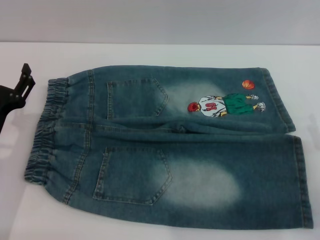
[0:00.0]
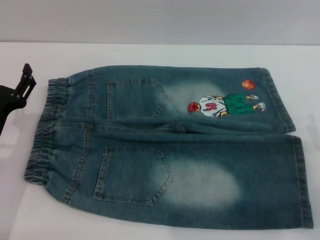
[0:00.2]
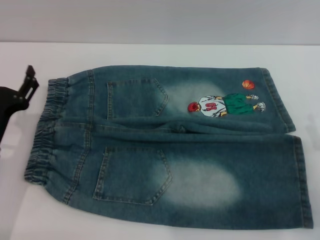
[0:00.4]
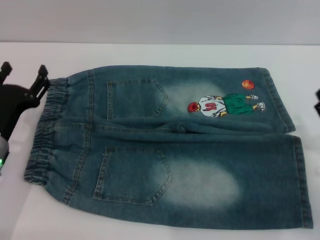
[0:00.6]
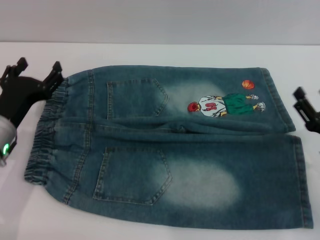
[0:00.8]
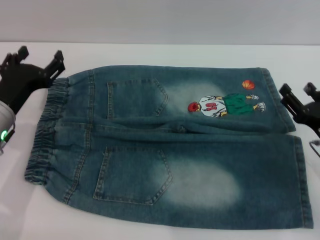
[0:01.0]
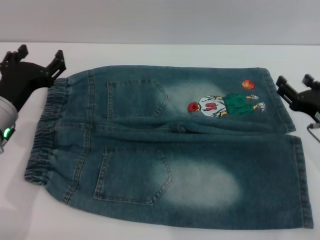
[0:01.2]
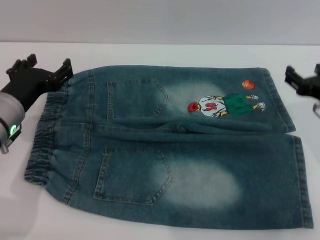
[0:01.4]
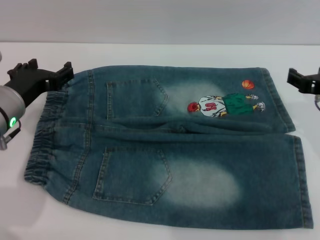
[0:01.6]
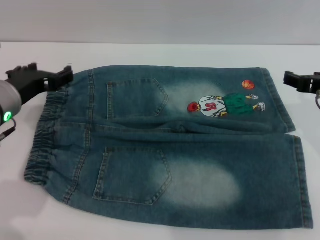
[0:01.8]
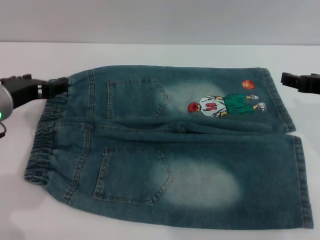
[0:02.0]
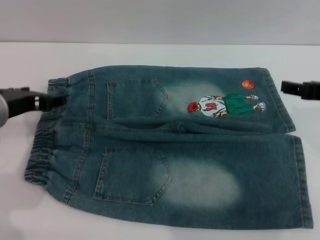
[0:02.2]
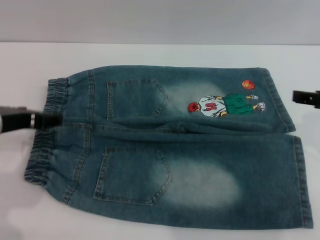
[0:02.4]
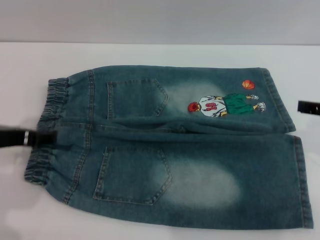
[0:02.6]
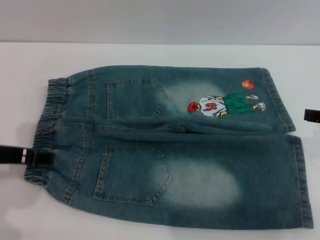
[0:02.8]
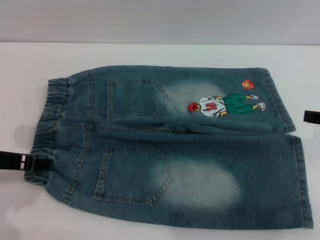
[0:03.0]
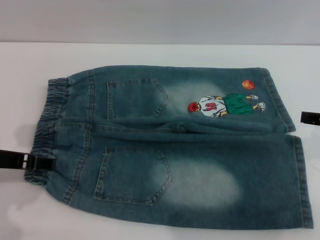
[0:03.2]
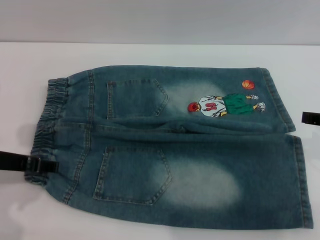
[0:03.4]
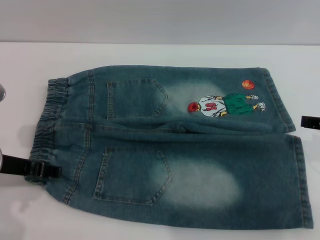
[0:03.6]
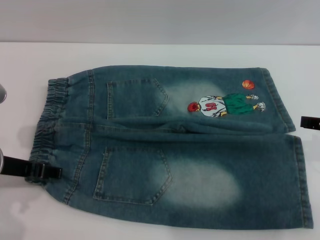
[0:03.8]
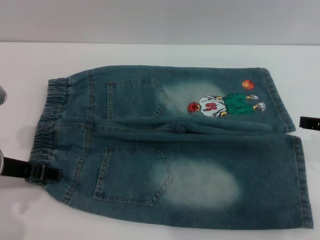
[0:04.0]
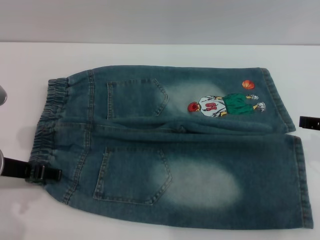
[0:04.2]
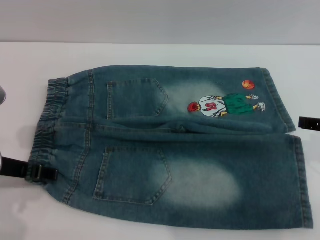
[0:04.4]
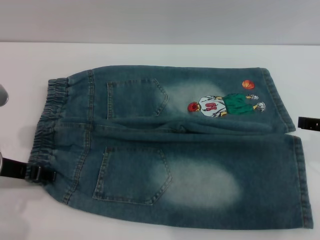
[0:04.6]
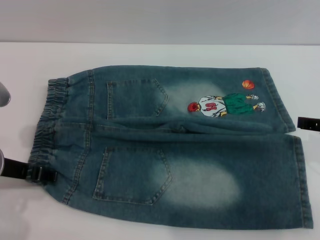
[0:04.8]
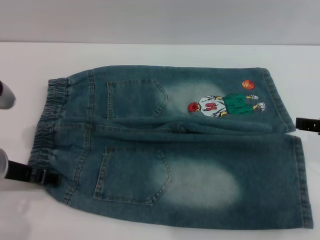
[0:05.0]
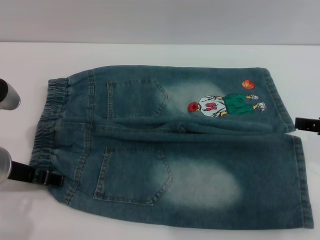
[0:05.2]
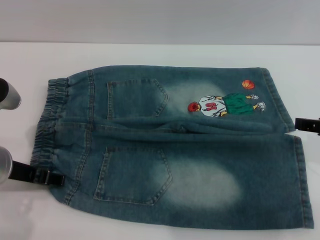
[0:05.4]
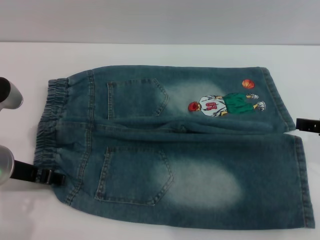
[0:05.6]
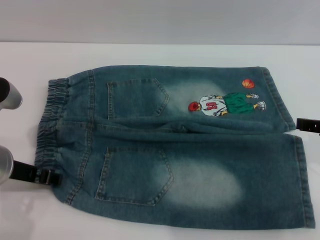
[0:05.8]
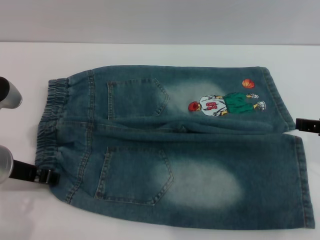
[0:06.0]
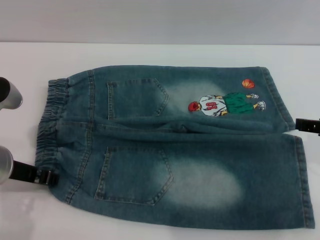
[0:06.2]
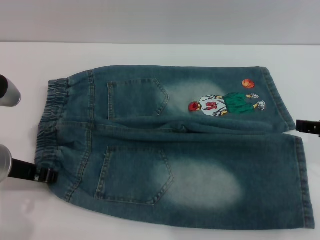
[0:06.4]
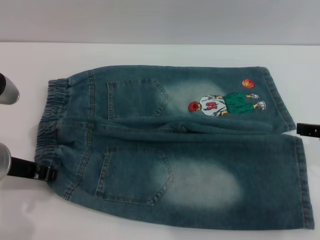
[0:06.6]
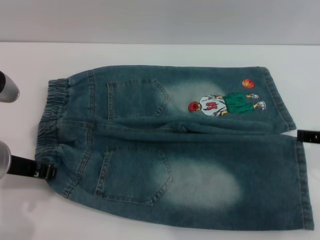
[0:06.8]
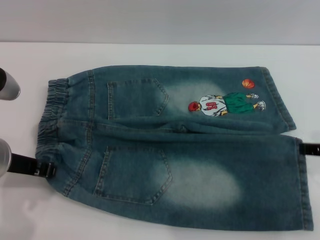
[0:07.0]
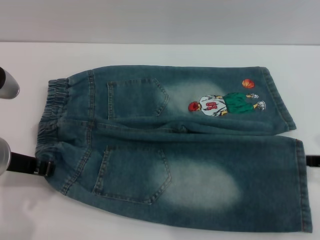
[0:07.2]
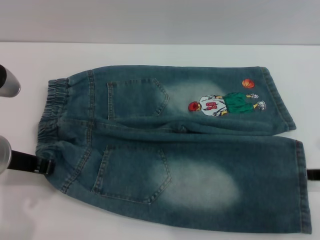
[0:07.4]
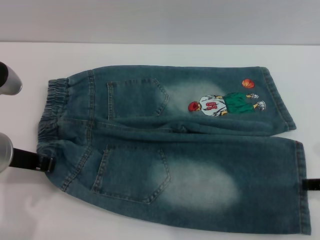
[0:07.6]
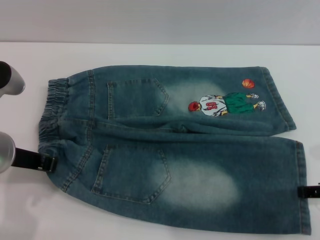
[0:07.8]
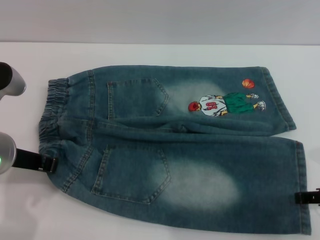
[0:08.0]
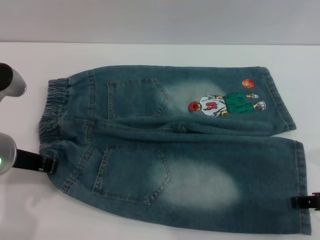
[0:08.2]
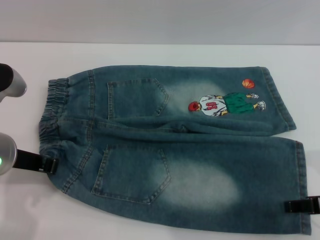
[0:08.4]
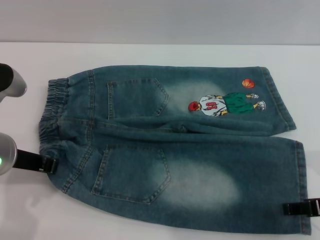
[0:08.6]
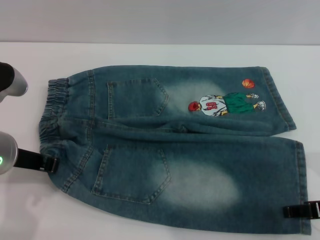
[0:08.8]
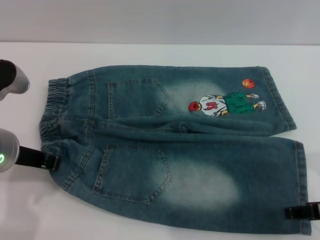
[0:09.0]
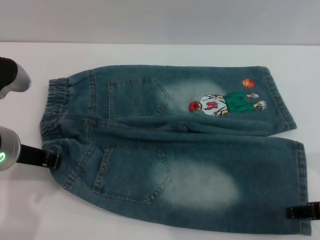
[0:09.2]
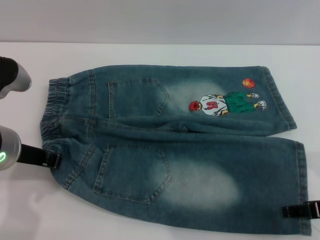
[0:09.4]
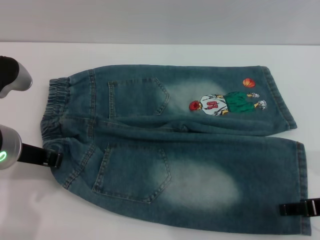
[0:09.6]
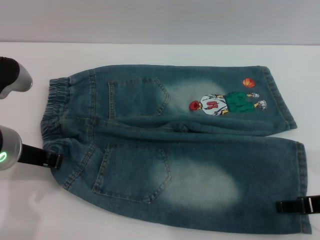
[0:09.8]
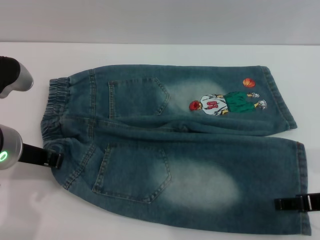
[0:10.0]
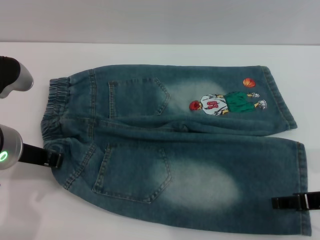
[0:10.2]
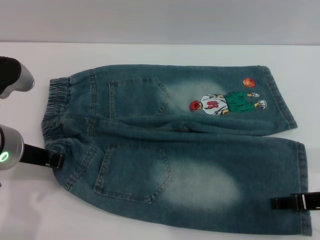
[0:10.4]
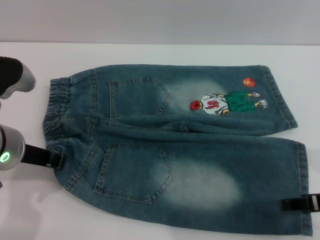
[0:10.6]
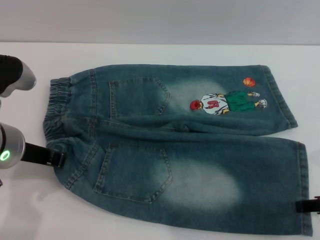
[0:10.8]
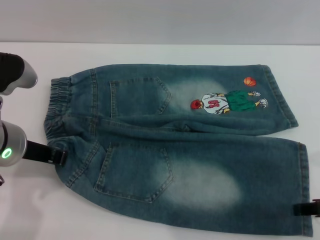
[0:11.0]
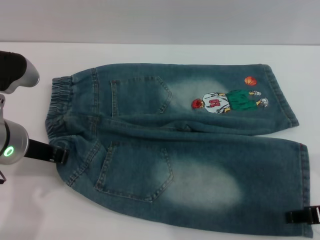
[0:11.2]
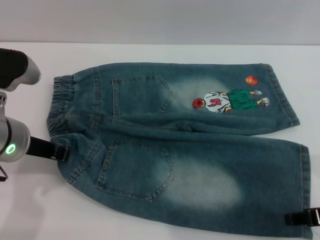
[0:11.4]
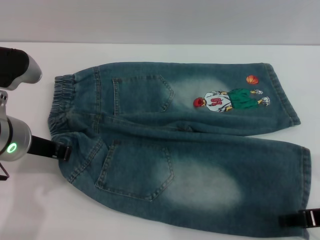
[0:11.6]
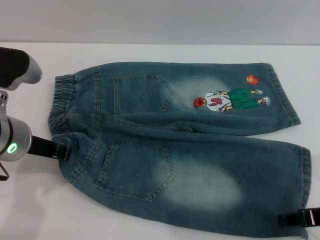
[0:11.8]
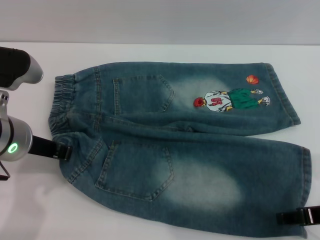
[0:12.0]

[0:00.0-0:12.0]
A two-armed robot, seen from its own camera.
0:00.0 to 0:01.6: The left gripper is displaced upward by about 10 cm, while the right gripper goes about 15 cm upward and forward.
0:01.6 to 0:03.0: The right gripper moves upward and backward, approximately 10 cm, while the left gripper goes about 5 cm backward.
0:03.0 to 0:06.0: The grippers move only a little.
0:06.0 to 0:07.6: The left gripper closes.
0:07.6 to 0:12.0: The grippers stay close to where they were, moving slightly.

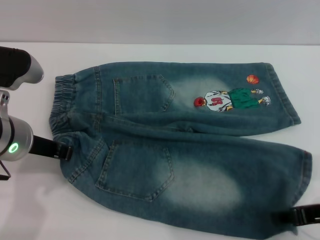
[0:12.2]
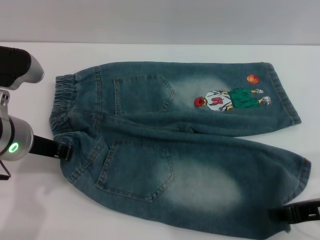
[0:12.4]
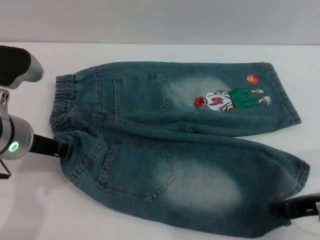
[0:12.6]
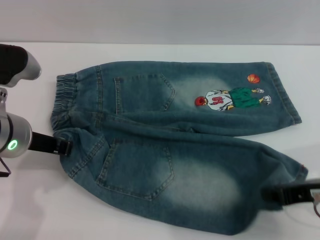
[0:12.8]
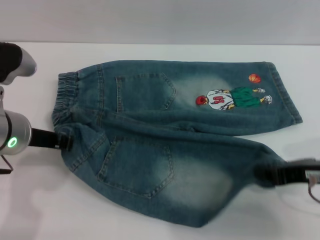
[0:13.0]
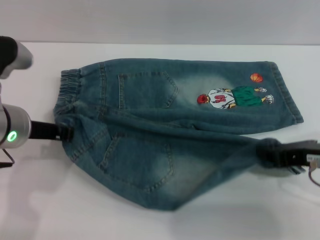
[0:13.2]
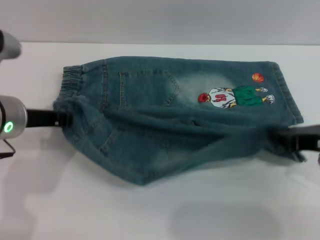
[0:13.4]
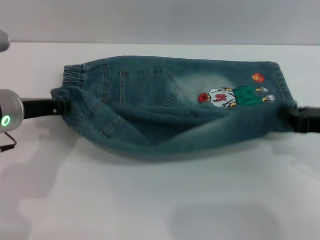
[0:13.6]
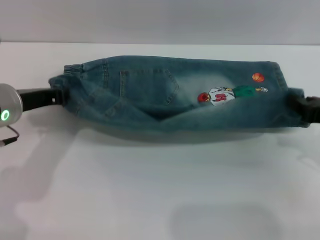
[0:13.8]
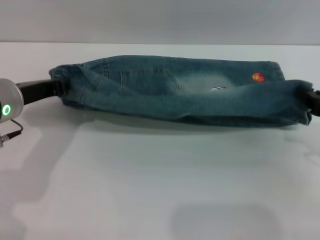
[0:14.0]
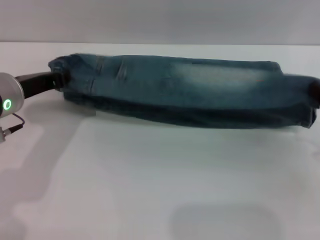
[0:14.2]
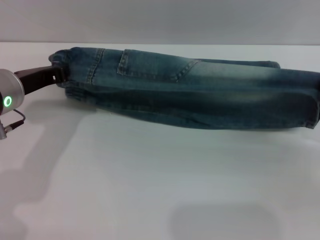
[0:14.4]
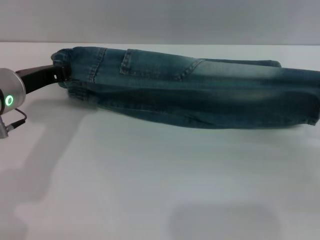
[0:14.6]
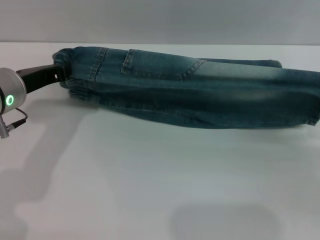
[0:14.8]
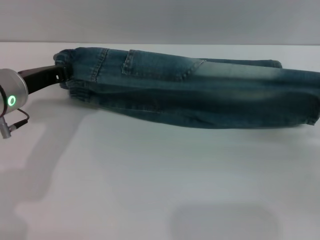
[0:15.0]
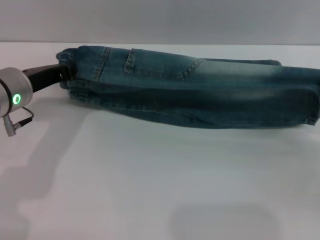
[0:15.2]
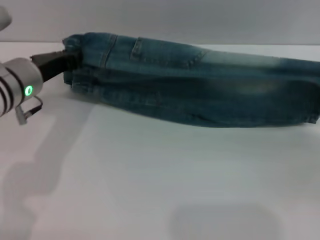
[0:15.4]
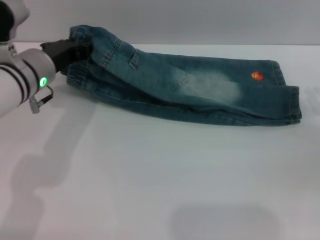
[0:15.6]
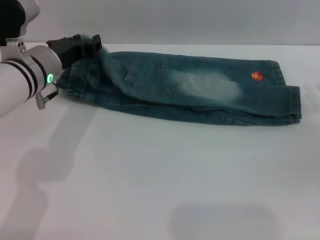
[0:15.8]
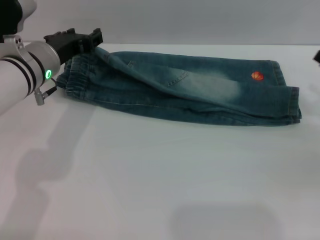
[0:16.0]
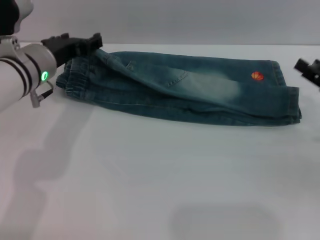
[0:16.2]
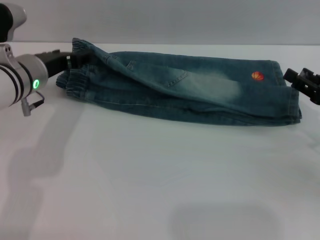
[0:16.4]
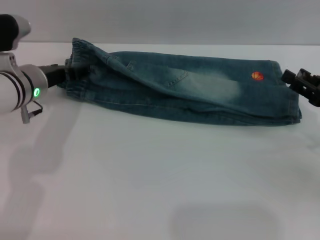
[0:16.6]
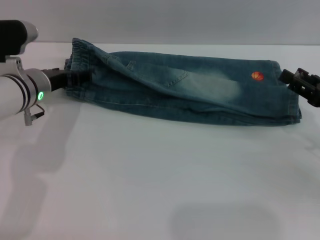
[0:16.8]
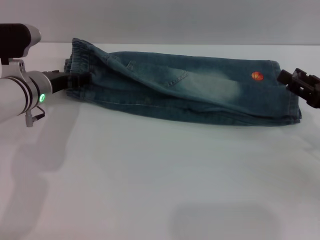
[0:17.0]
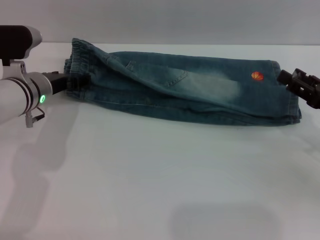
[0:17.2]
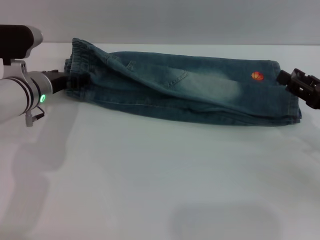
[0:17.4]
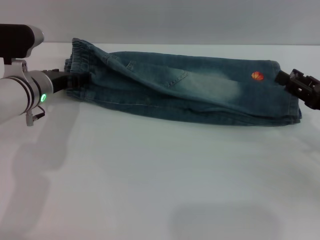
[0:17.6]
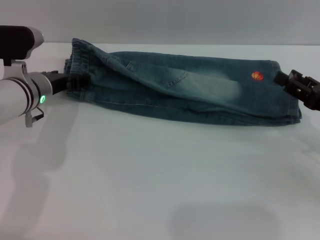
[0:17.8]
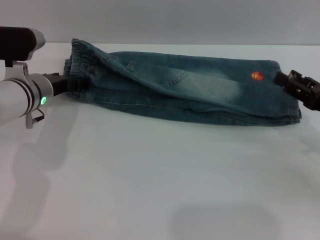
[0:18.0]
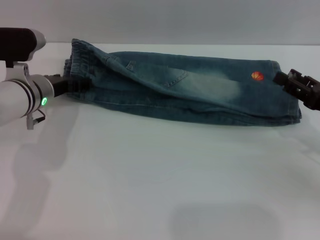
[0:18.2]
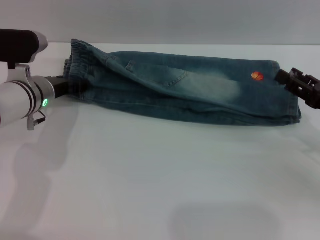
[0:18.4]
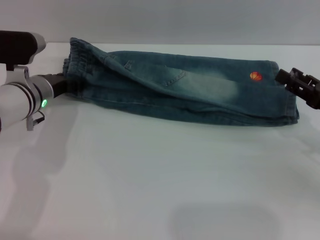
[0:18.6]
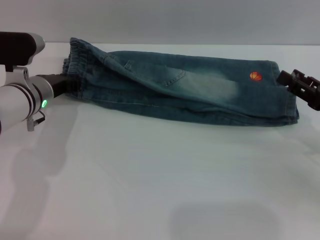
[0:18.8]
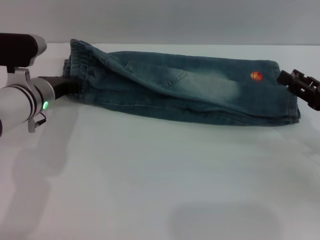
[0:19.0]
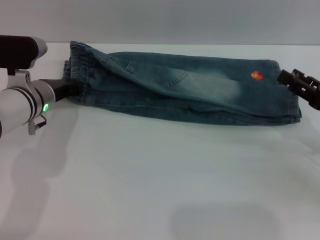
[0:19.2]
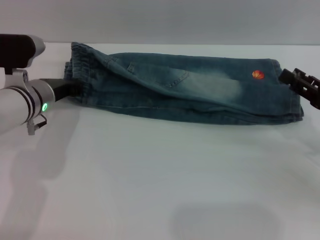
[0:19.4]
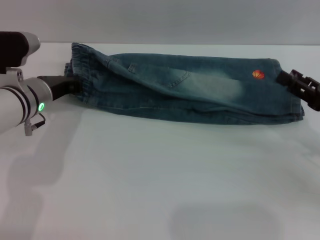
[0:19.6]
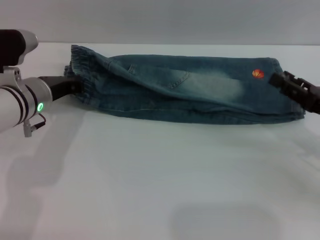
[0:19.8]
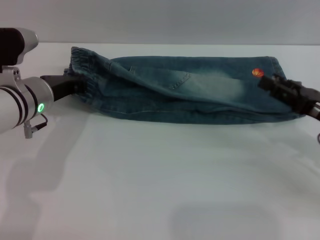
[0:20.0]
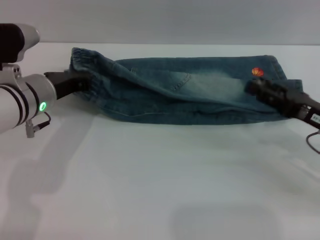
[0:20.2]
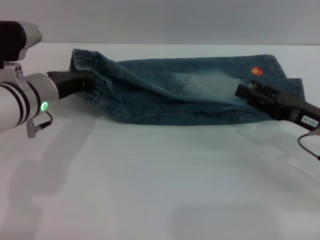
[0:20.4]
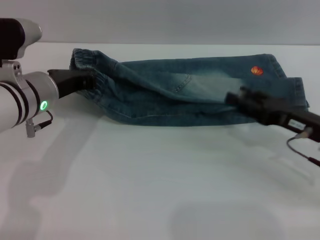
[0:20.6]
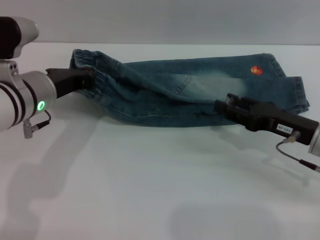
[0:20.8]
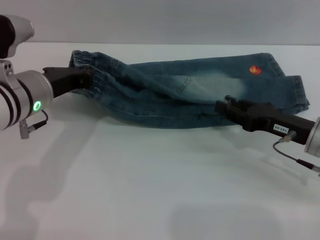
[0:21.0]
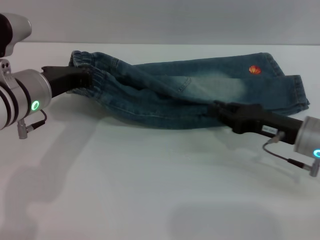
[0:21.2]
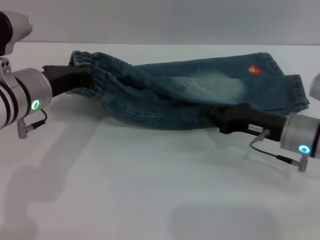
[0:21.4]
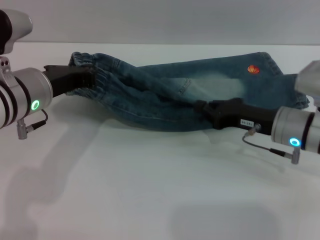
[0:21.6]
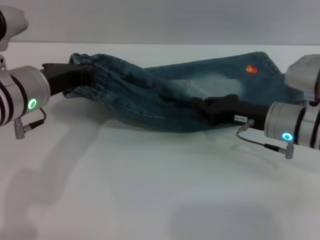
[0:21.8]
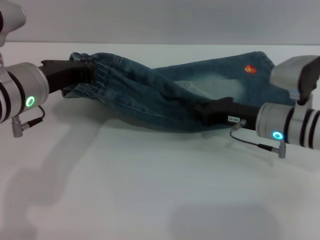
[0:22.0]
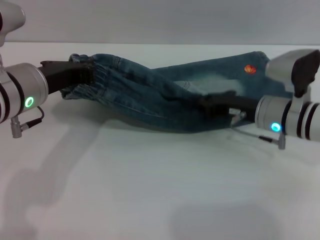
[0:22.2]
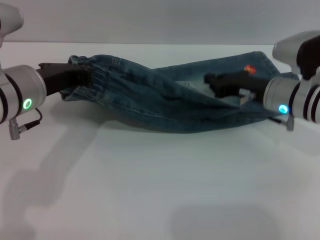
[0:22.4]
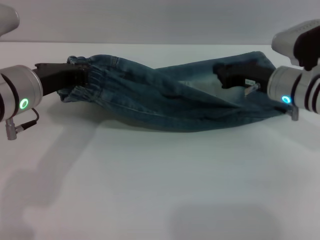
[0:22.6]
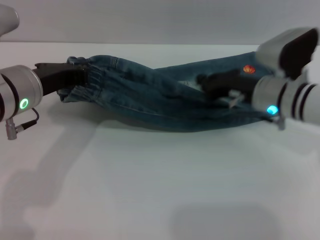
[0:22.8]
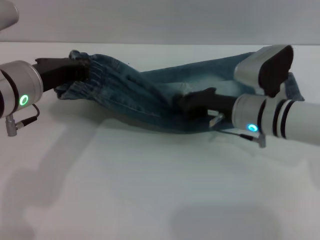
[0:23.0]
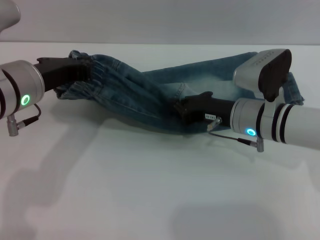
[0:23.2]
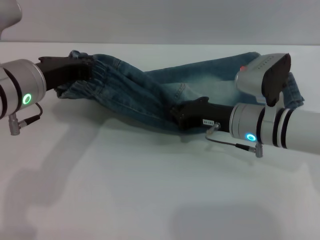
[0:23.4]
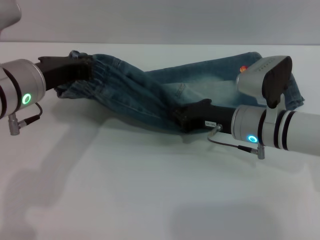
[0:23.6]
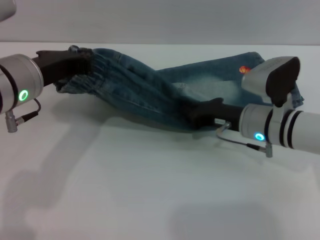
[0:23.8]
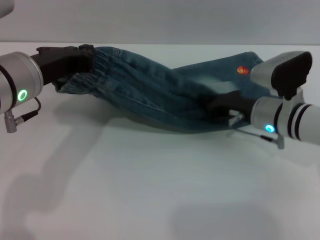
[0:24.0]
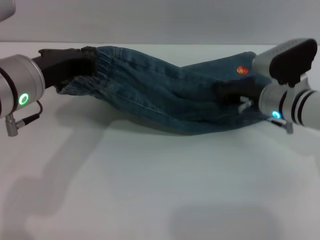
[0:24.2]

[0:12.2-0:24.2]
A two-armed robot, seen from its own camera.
Step, 0:12.2 to 0:19.0: Fold the bottom of the pants upward with both grippers.
0:12.2 to 0:13.8: The right gripper moves approximately 5 cm, and closes up.
0:13.8 to 0:15.2: The right gripper travels to the right by some 5 cm.
0:15.2 to 0:16.6: The right gripper opens its fingers, while the left gripper goes about 5 cm forward, and opens up.
0:16.6 to 0:18.2: The grippers move only a little.
0:18.2 to 0:19.8: The left gripper closes its fingers.
0:19.8 to 0:21.2: The right gripper travels to the left by approximately 5 cm. The left gripper travels upward by roughly 5 cm.
0:21.2 to 0:22.6: The right gripper travels forward by some 10 cm, and closes up.
